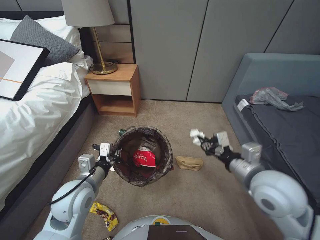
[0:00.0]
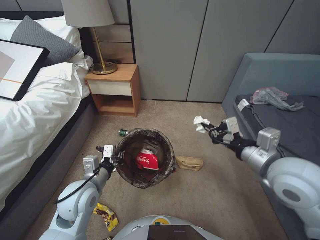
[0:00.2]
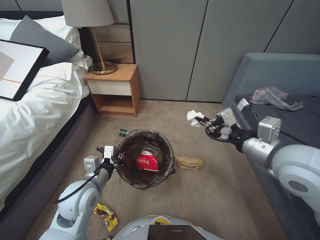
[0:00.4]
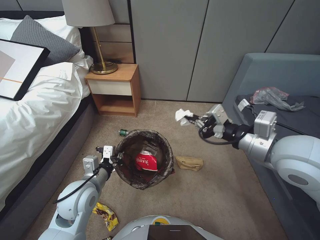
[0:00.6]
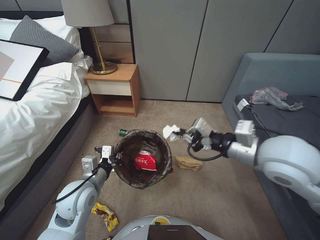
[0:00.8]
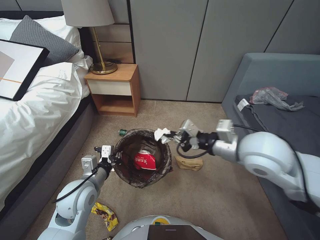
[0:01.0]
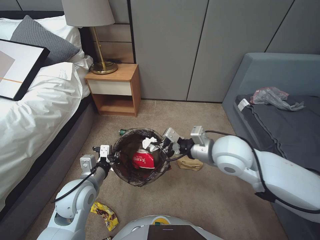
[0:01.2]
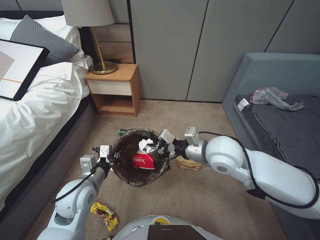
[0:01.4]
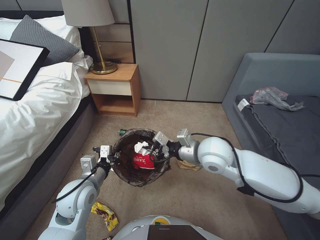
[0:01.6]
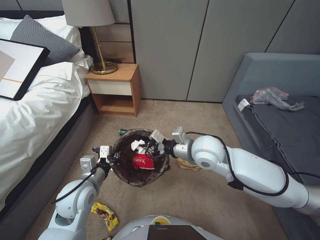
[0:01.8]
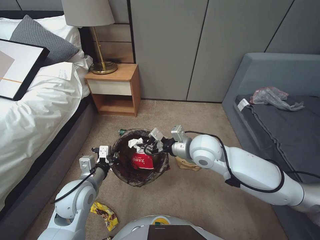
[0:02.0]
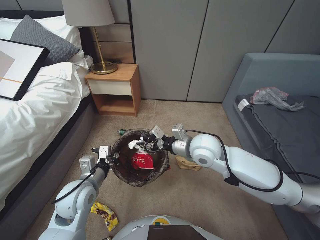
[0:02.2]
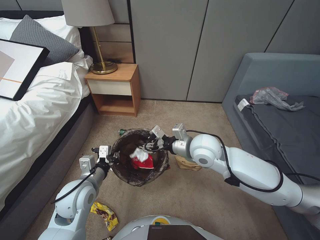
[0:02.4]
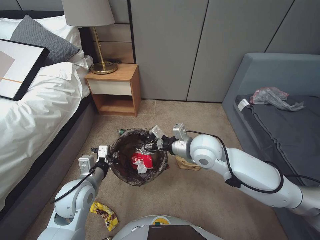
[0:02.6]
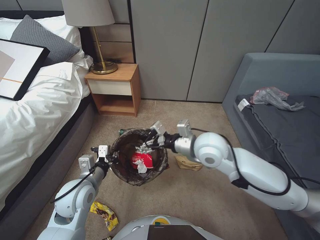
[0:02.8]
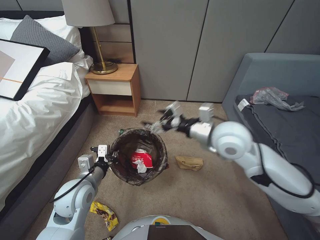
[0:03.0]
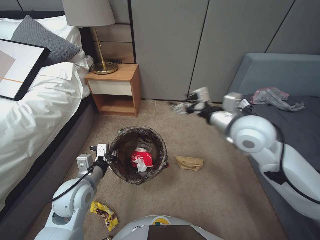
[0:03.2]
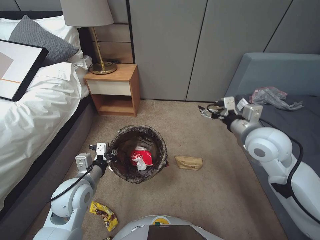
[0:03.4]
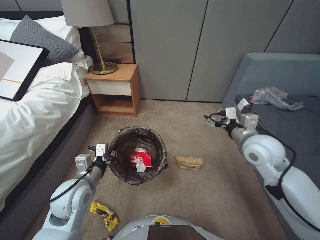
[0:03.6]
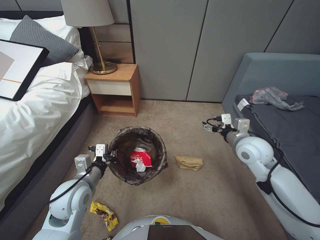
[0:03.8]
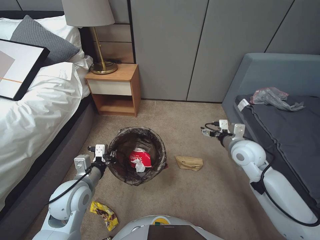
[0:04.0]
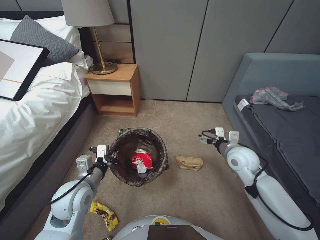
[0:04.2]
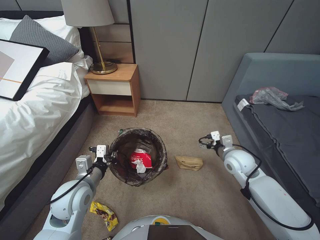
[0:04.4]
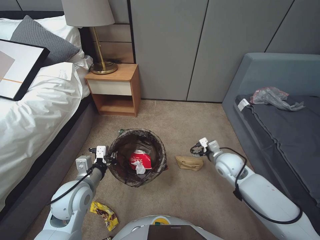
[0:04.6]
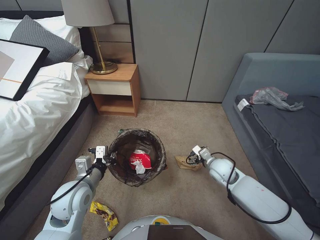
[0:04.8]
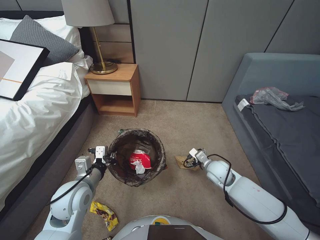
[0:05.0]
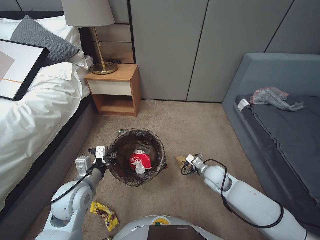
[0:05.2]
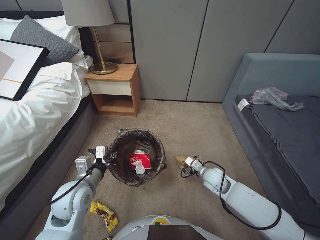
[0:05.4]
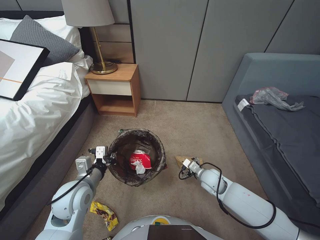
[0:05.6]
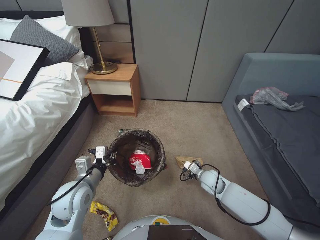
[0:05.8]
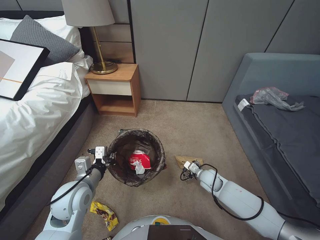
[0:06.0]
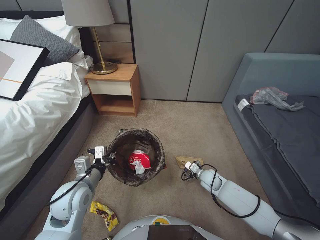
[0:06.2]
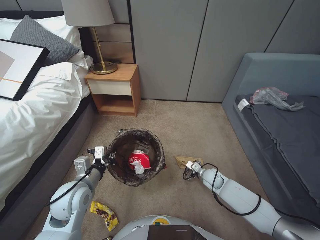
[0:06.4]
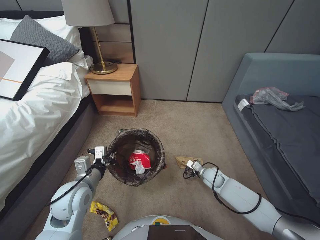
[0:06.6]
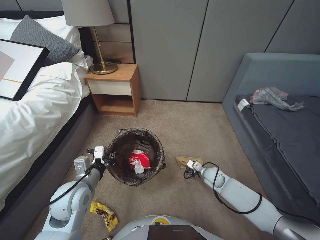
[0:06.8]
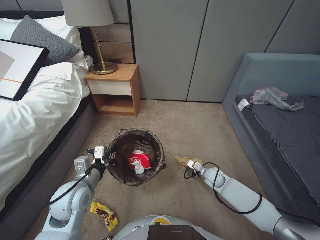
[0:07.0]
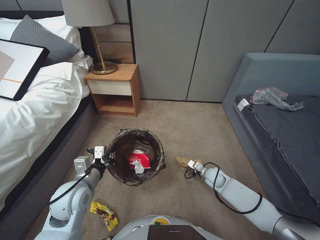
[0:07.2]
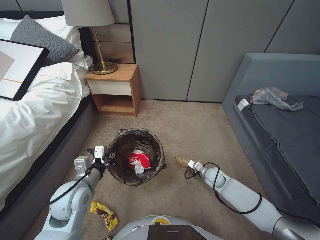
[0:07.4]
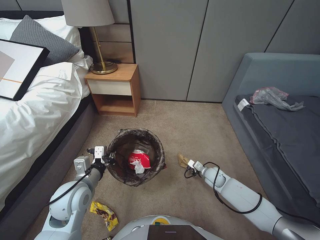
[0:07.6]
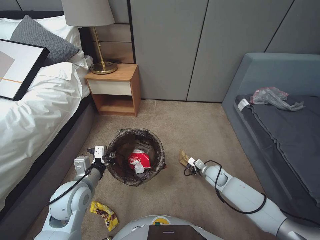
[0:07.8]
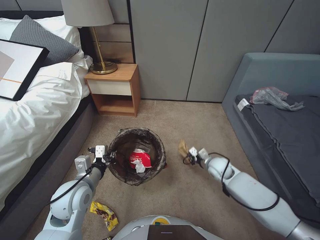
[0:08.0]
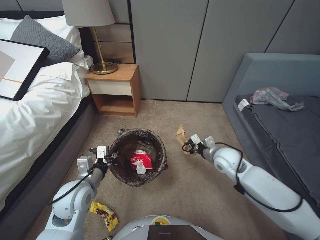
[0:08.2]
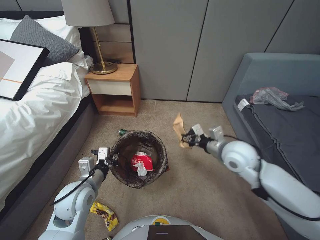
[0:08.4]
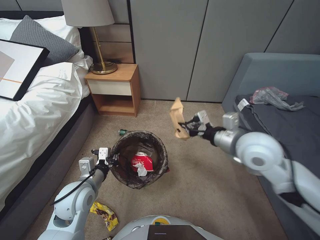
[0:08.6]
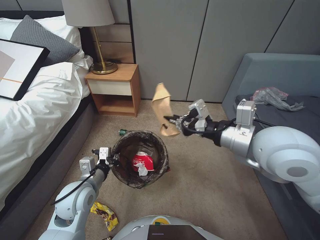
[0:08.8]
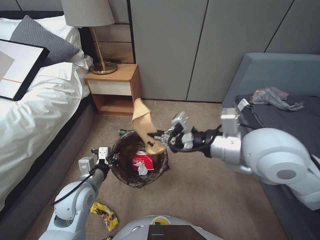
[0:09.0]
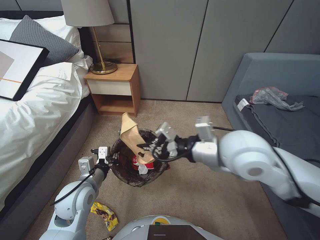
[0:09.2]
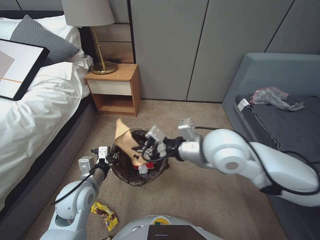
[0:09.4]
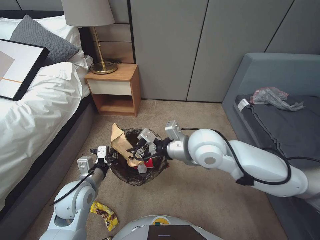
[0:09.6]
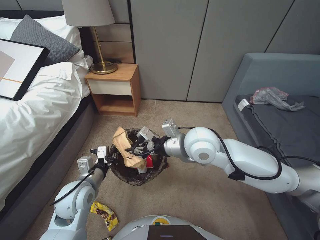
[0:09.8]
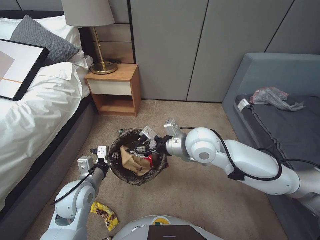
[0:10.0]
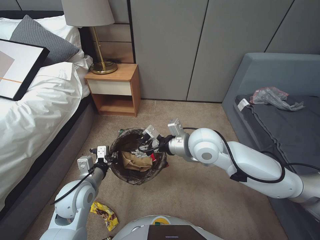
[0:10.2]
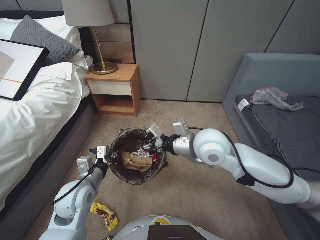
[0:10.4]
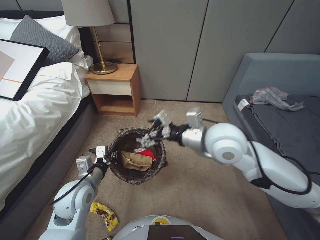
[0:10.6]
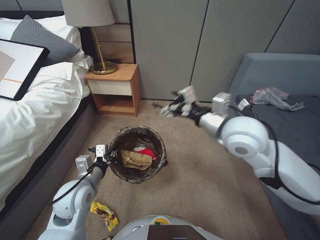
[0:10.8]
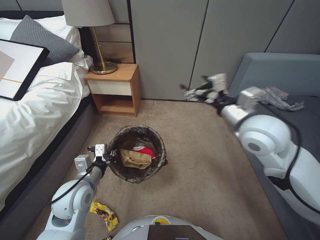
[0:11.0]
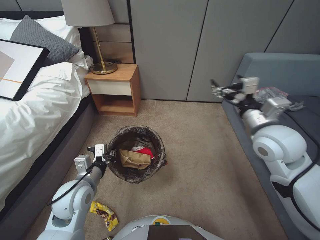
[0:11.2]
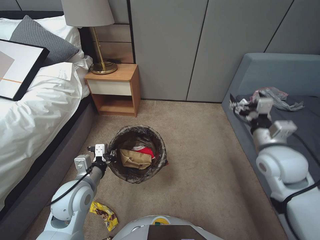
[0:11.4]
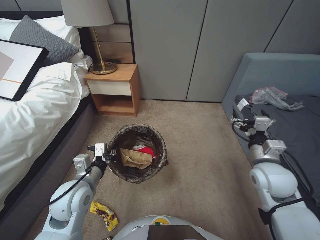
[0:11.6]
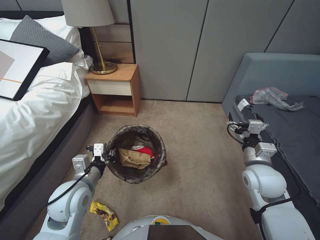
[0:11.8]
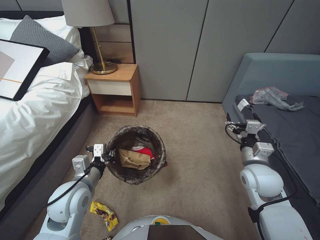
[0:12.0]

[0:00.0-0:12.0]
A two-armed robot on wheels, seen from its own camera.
Task of the whole recording: Pick up the trash bin, then pick up the garbage from the floor and place it into the trash bin.
0:00.0 to 0:01.6: The right gripper goes roughly 20 cm upward, to the left and forward.
0:01.6 to 0:03.0: The right gripper opens.
0:03.0 to 0:04.4: The right gripper is displaced to the right and downward by some 20 cm.
0:04.4 to 0:06.0: The right gripper shifts some 15 cm downward.
0:06.0 to 0:07.6: The right gripper changes place by about 5 cm, and closes.
0:07.6 to 0:09.0: The right gripper shifts approximately 40 cm upward.
0:09.0 to 0:10.4: The right gripper is displaced downward, to the left and forward by approximately 15 cm, and opens up.
0:10.4 to 0:12.0: The right gripper shifts approximately 20 cm to the right and downward.

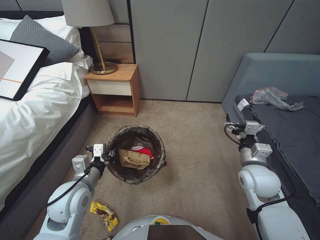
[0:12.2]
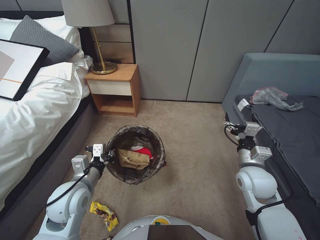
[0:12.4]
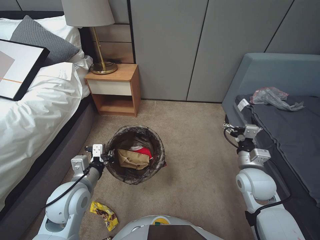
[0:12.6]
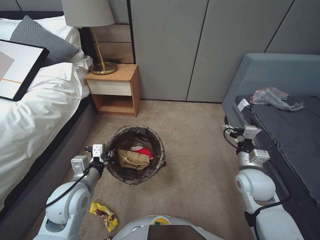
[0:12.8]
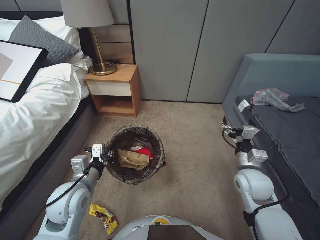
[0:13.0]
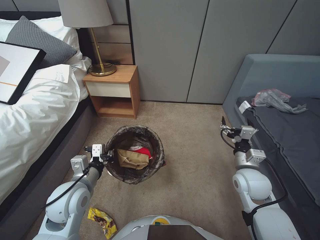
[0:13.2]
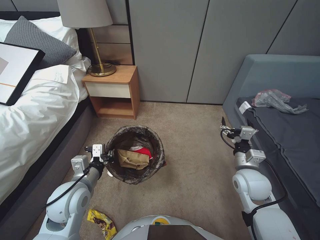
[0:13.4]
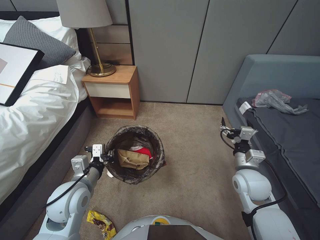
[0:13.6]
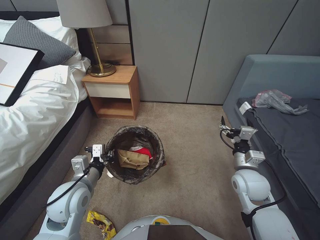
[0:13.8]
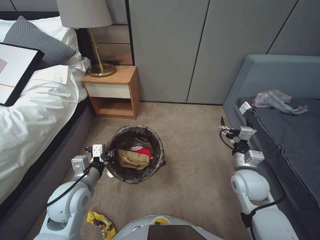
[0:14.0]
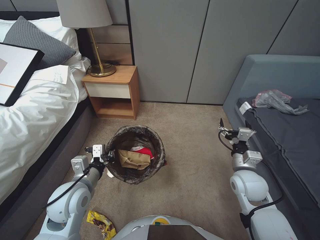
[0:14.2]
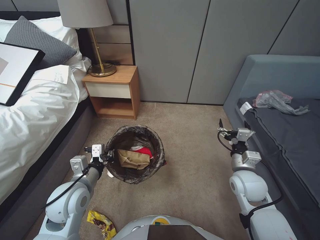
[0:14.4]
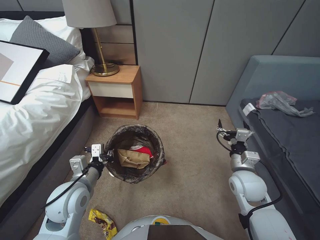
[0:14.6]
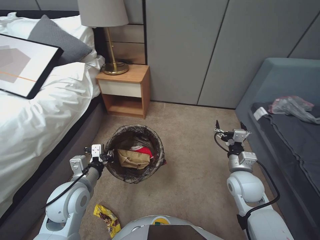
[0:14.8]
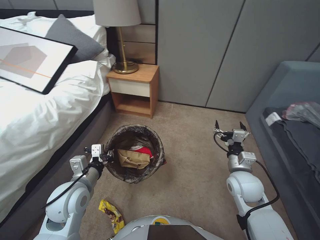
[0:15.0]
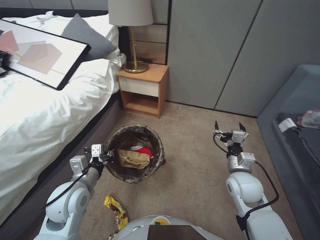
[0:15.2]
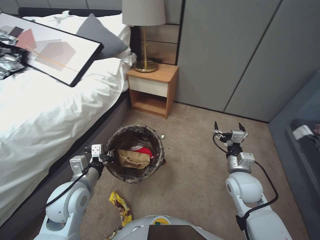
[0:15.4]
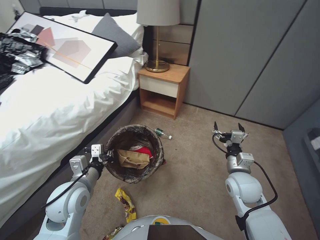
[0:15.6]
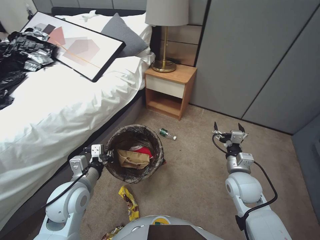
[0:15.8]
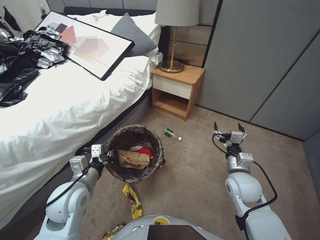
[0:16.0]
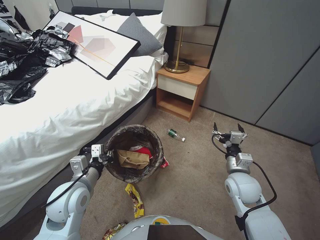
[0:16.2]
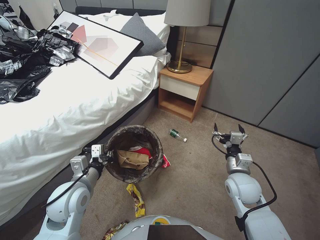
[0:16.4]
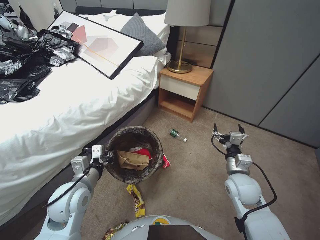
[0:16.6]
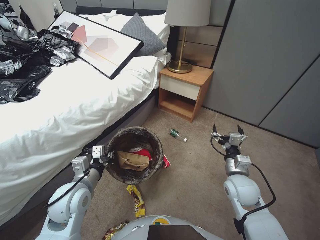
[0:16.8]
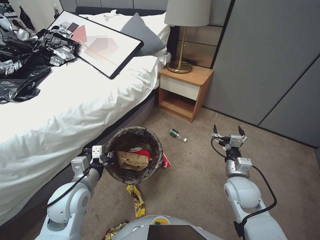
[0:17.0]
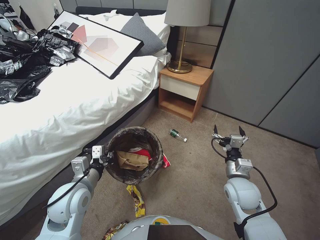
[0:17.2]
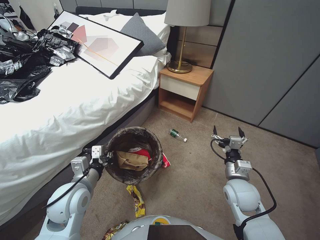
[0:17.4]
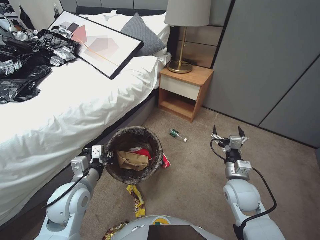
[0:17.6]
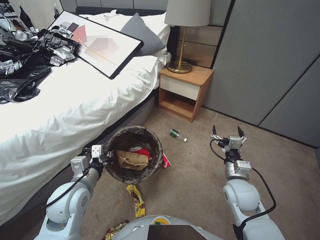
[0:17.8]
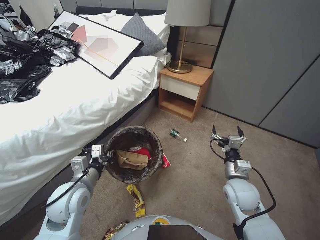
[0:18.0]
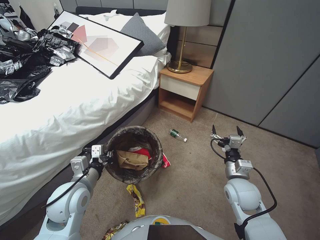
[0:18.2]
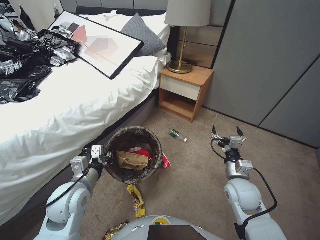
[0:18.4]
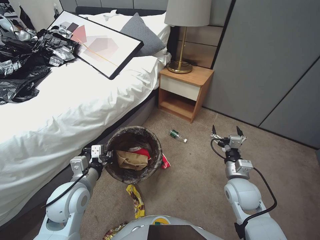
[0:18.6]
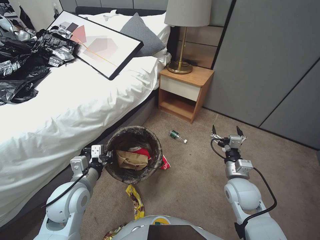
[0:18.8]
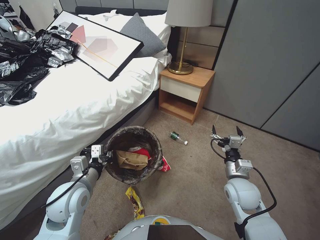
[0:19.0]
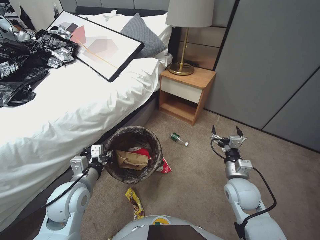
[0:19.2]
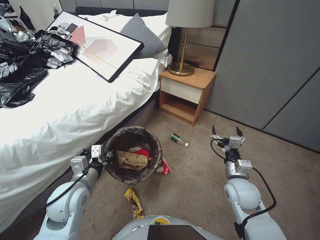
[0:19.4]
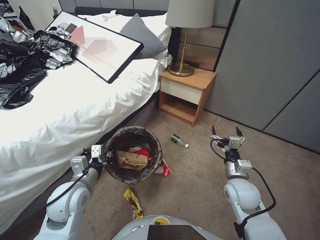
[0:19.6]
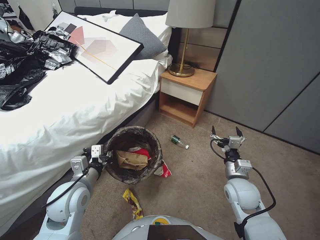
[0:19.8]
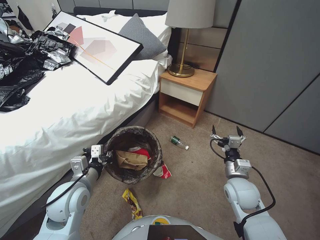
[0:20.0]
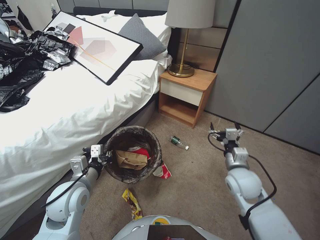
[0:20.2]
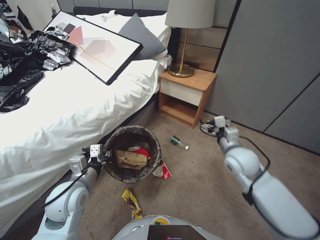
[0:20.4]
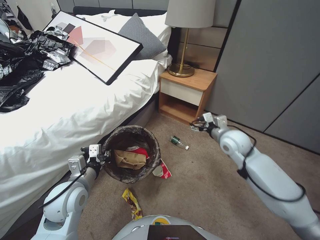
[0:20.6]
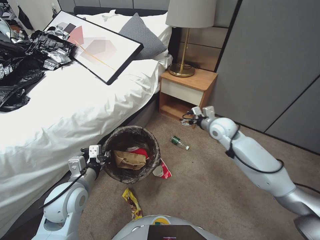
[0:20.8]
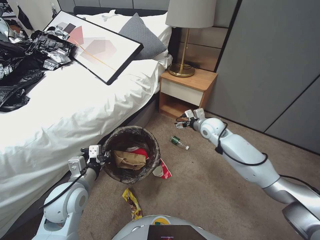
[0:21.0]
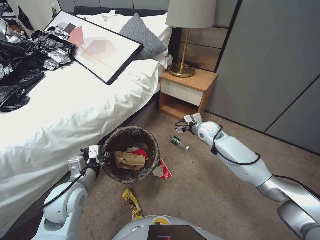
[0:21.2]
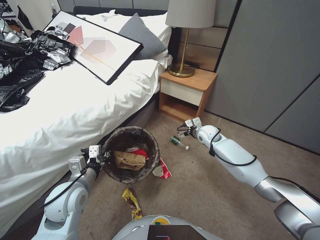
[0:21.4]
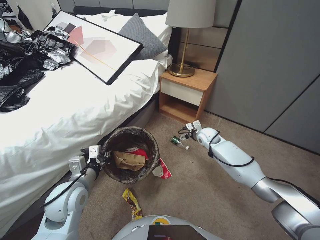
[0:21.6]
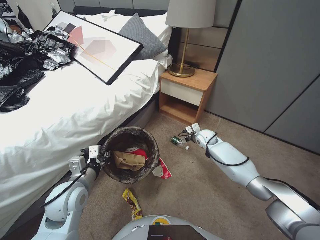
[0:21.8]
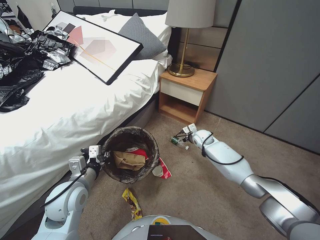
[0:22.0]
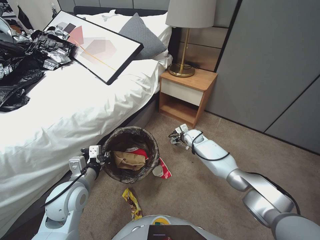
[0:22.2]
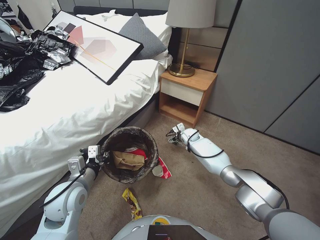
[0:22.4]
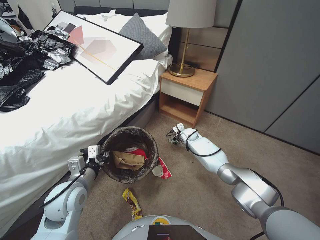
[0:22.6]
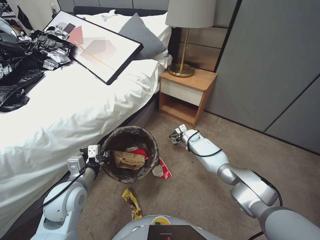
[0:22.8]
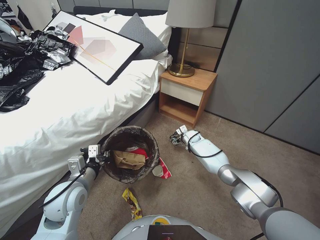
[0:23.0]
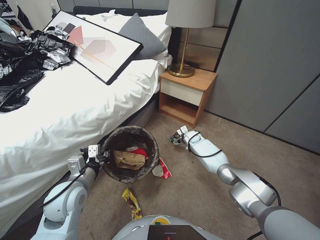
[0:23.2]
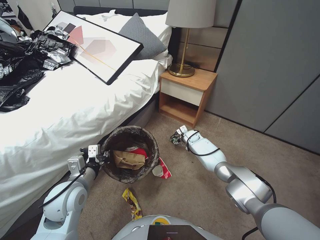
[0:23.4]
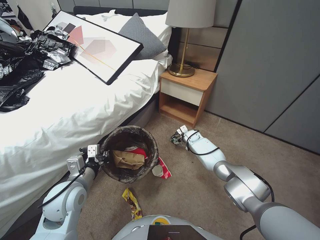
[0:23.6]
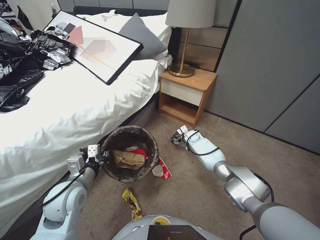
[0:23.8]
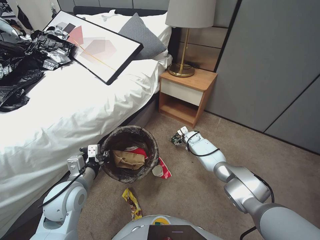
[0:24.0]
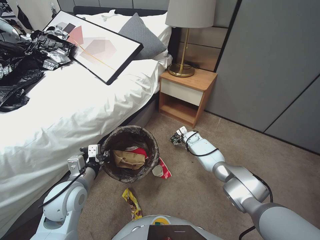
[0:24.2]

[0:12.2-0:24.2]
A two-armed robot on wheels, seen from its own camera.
Task of the whole recording: Pick up the trash bin, then pick up the garbage from the floor and place it into the trash bin.
0:12.2 to 0:13.8: The grippers stay close to where they were, moving slightly.
0:16.6 to 0:18.2: The grippers make only small movements.
0:18.2 to 0:19.8: Both grippers stay about where they are.
0:19.8 to 0:21.2: The right gripper goes some 25 cm forward.
0:21.2 to 0:22.6: The right gripper heads downward and forward, covering roughly 15 cm.
0:22.6 to 0:24.2: The right gripper changes place by about 5 cm.
